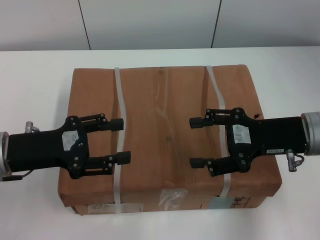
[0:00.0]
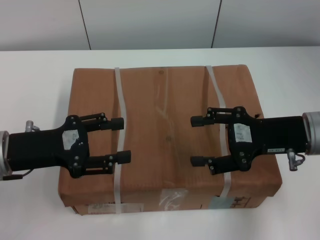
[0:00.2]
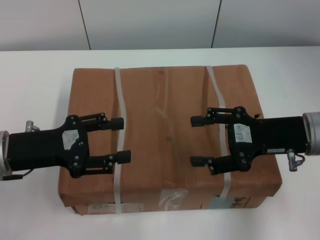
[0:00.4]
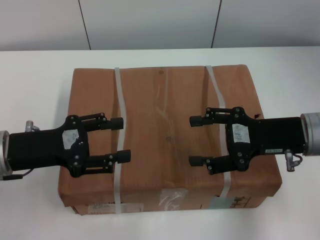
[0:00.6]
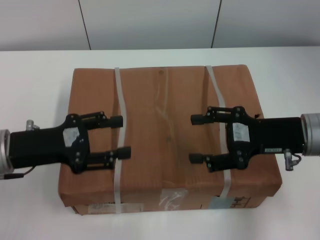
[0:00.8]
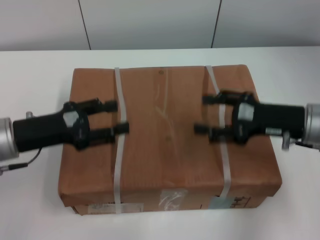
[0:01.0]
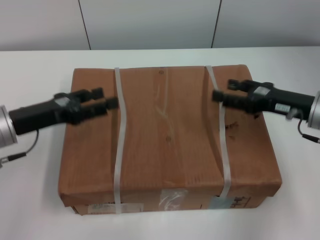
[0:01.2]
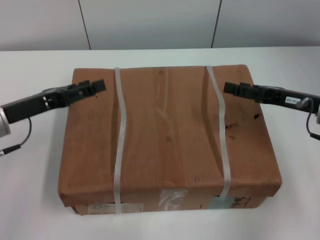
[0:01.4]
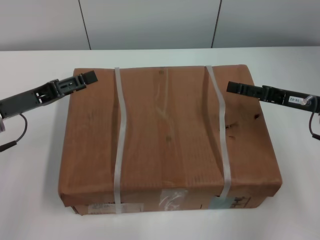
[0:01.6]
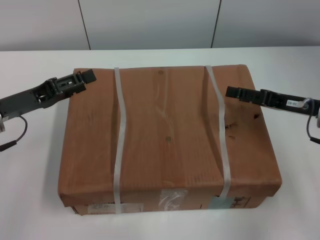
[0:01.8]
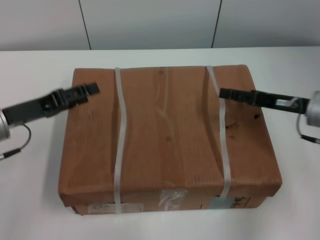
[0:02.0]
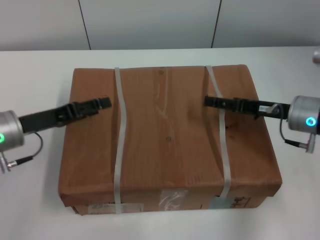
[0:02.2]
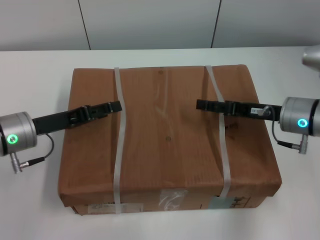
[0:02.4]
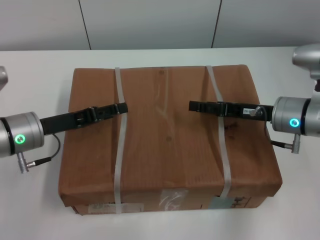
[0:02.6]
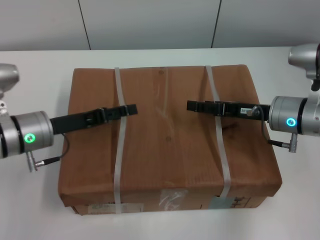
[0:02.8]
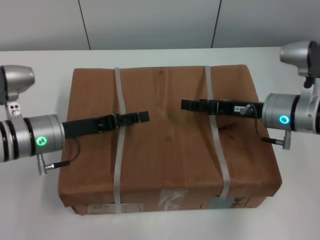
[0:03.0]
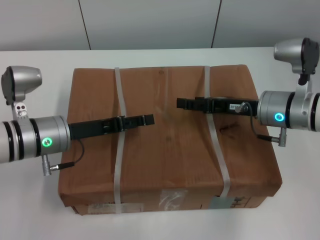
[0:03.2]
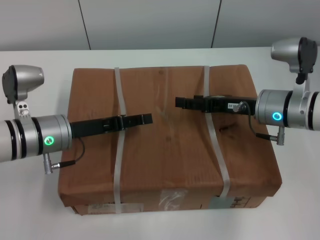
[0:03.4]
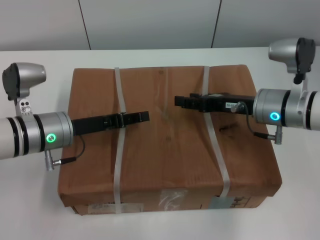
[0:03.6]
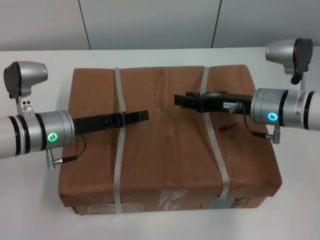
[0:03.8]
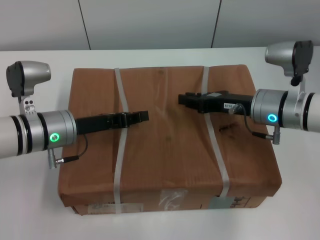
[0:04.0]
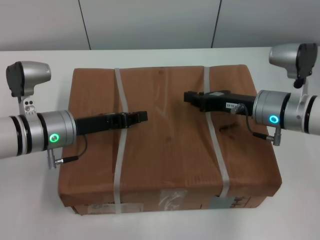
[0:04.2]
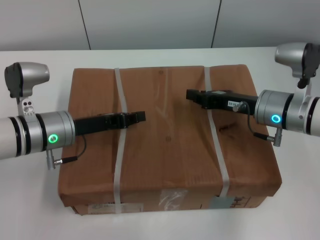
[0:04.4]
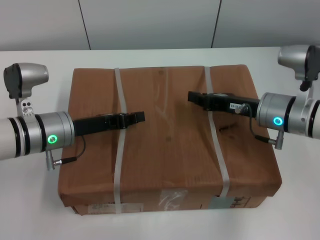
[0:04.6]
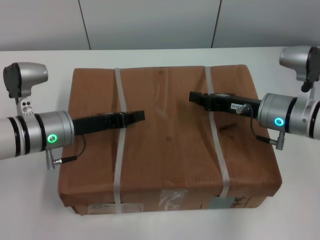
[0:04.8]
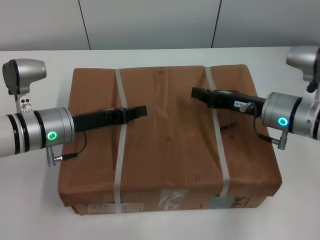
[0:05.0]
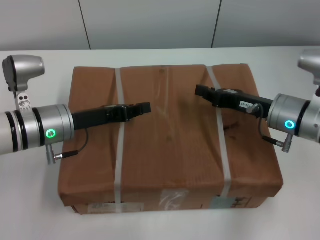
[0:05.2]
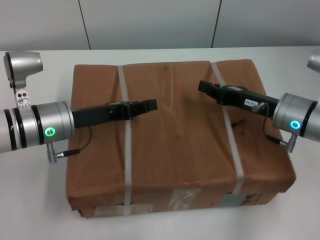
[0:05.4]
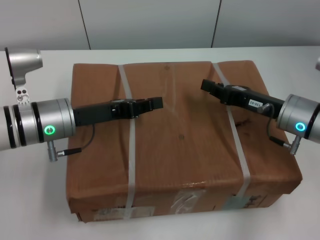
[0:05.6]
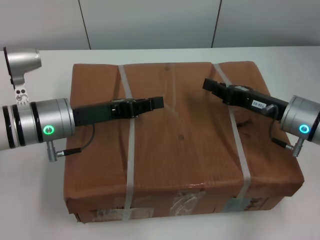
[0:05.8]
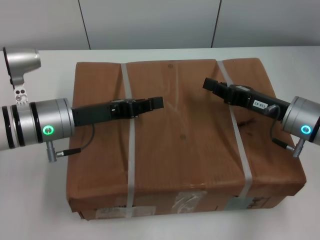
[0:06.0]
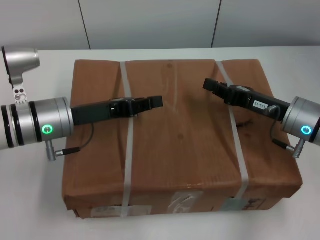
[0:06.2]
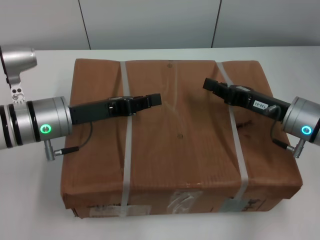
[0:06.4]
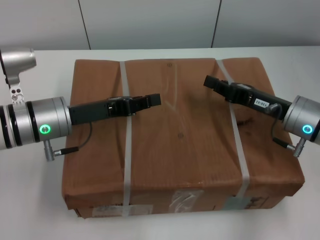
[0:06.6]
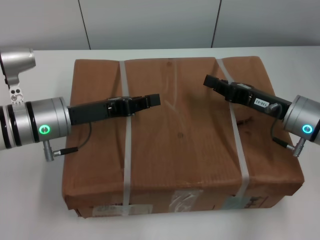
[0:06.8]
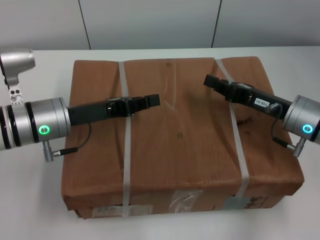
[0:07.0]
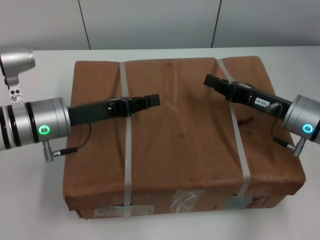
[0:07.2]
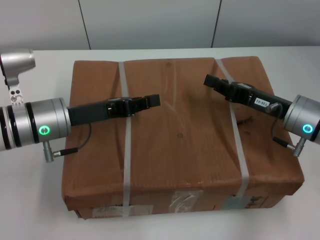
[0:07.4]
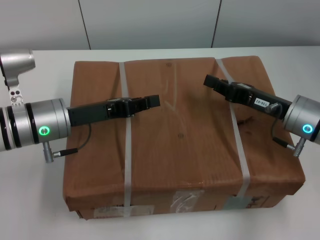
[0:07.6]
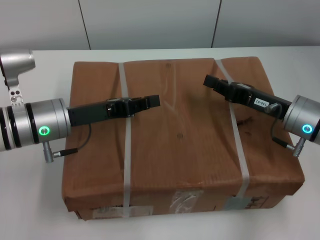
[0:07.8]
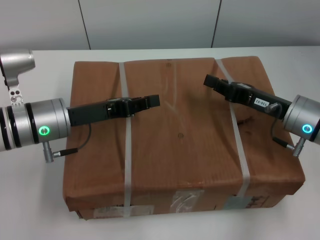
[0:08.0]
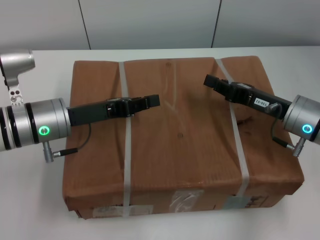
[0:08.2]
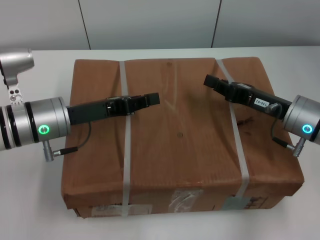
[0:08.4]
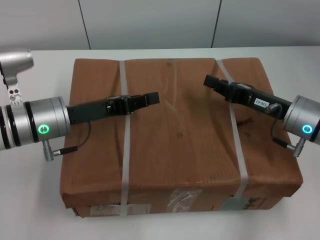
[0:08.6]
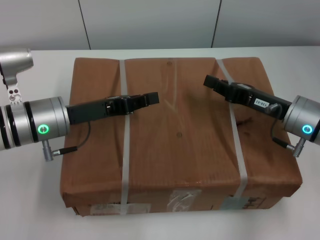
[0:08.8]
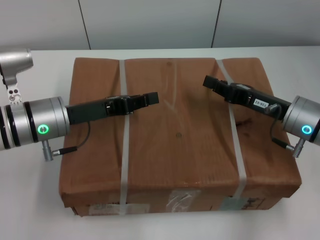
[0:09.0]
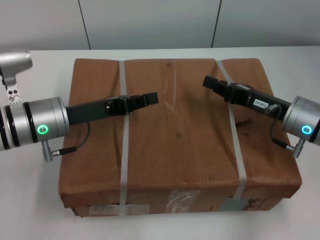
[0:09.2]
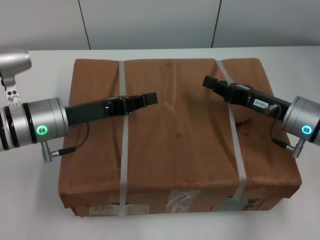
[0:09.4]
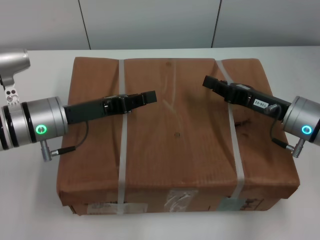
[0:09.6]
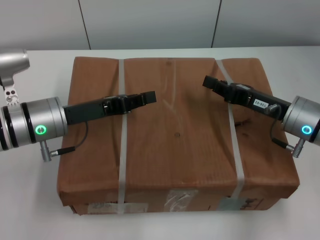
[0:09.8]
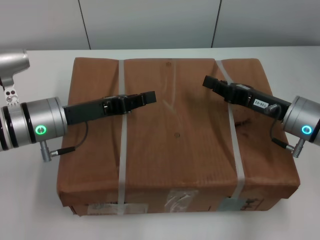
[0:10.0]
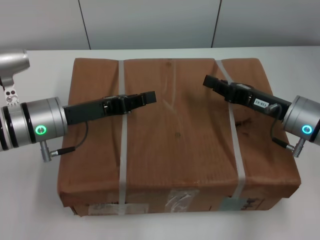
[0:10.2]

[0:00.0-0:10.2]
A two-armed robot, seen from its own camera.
Task of the whole recording: pick up the box from the table with both arms.
Step, 0:00.0 to 0:04.2: Grasp the bandage with left gripper.
Step, 0:00.0 to 0:04.2: Grasp the bandage with right gripper.
Step, 0:04.4 to 0:06.2: Lift the box with left gripper.
Step, 0:04.4 to 0:06.2: Lift the box with right gripper.
0:00.0 to 0:01.4: The right gripper changes place by about 5 cm.
0:01.4 to 0:03.0: The left gripper shifts roughly 5 cm to the right; the right gripper heads to the left, covering some 5 cm.
0:03.0 to 0:04.4: The right gripper closes up, while the left gripper closes up.
0:05.8 to 0:10.2: Both grippers stay about where they are.

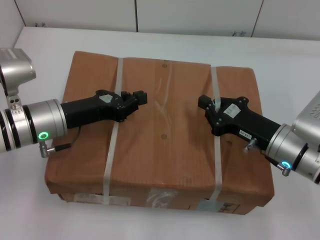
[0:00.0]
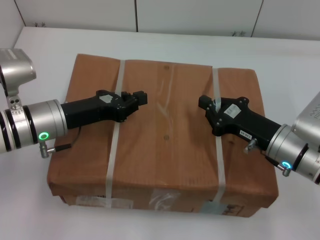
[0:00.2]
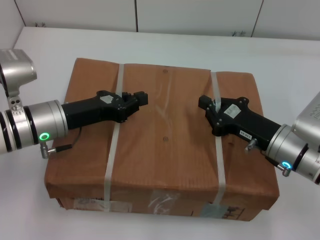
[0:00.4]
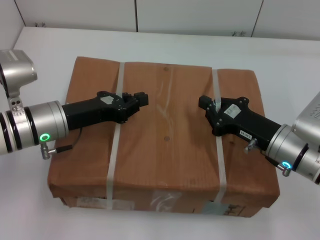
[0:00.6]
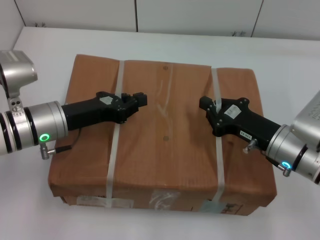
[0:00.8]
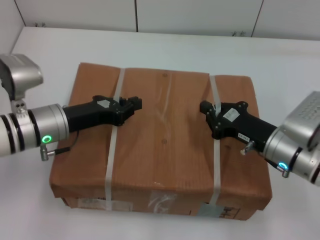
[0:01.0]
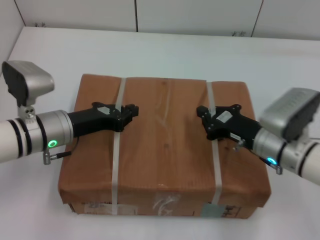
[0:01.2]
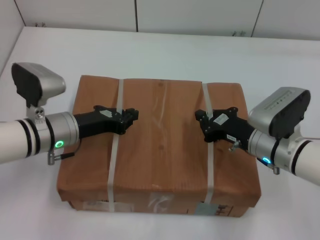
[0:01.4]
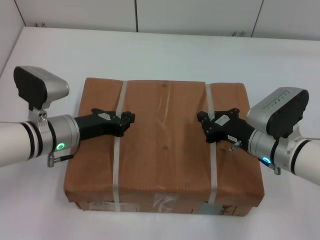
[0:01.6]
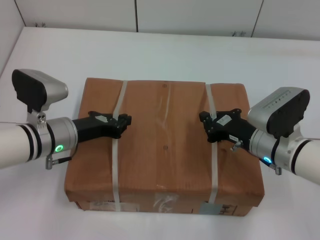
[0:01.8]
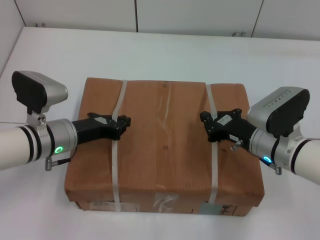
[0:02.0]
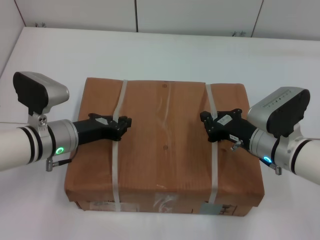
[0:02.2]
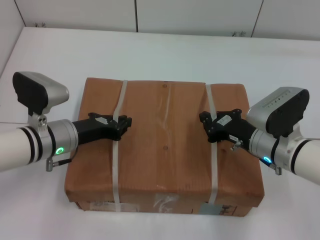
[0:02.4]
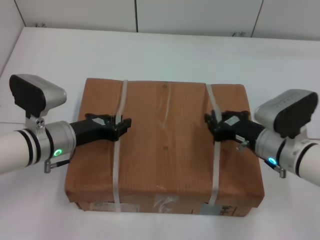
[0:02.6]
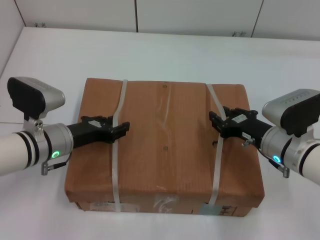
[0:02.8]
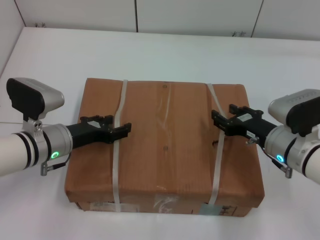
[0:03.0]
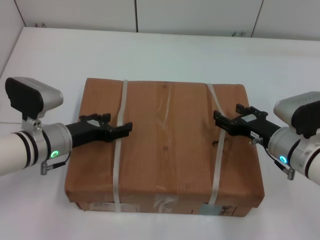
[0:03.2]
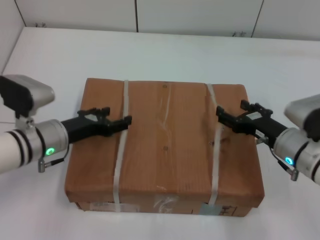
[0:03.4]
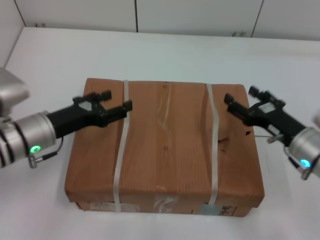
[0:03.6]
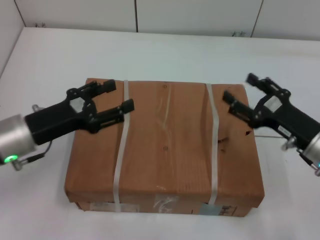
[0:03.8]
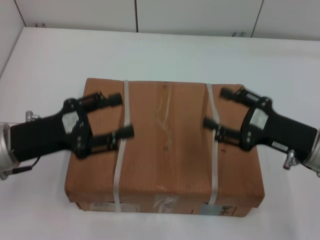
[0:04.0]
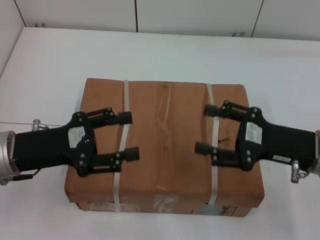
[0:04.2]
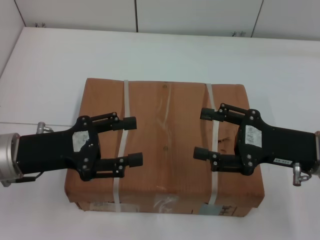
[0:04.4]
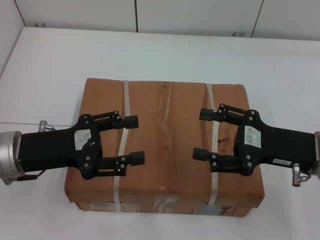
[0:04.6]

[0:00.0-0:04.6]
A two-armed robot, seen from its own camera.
Task of the whole recording: place the box on the table with both arms.
Step, 0:00.0 to 0:01.6: Place the box on the table with left gripper.
Step, 0:00.0 to 0:01.6: Place the box on the table with right gripper.
Step, 0:01.8 to 0:03.4: Loosen the box on the table with left gripper.
Step, 0:01.8 to 0:03.4: Loosen the box on the table with right gripper.
0:01.6 to 0:03.0: The left gripper opens.
0:03.0 to 0:04.6: The right gripper heads upward, covering roughly 10 cm, and opens its fingers; the left gripper moves upward and backward, approximately 10 cm, and opens.
